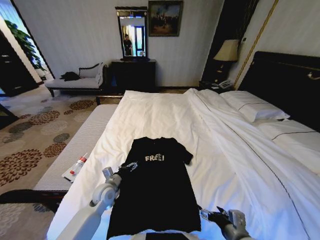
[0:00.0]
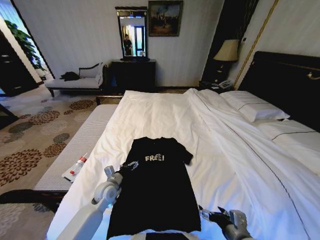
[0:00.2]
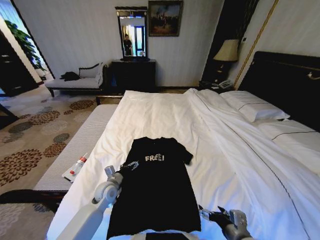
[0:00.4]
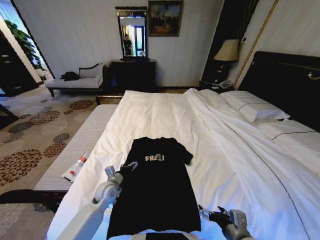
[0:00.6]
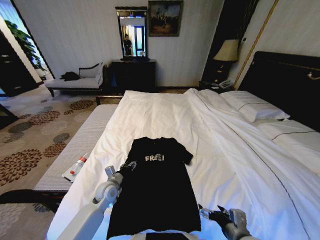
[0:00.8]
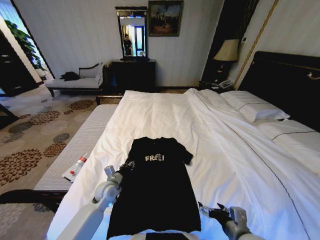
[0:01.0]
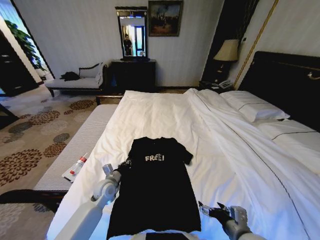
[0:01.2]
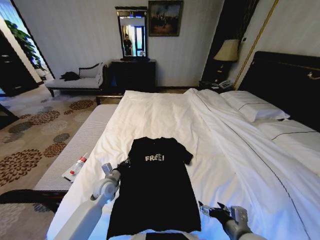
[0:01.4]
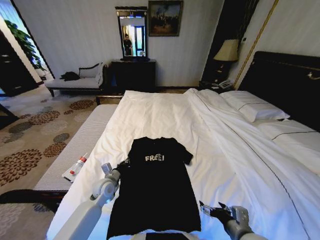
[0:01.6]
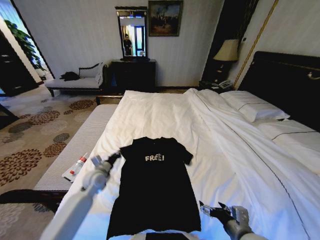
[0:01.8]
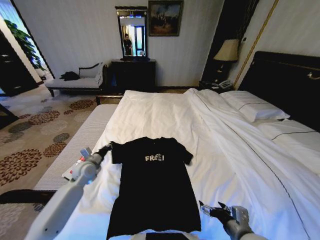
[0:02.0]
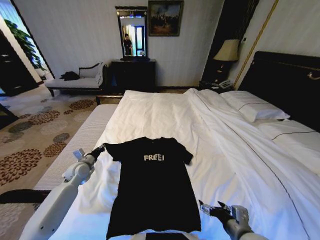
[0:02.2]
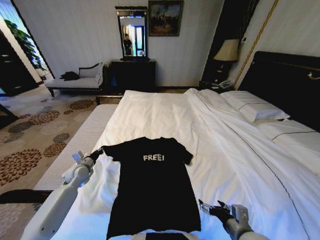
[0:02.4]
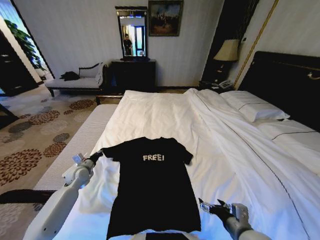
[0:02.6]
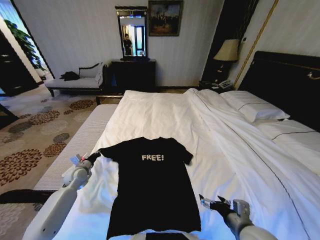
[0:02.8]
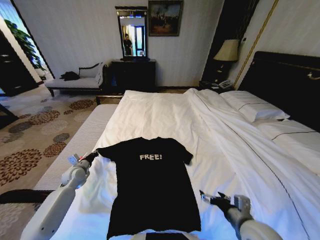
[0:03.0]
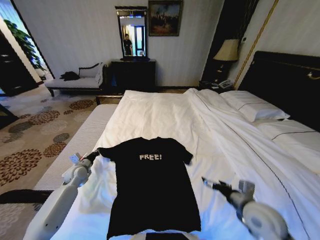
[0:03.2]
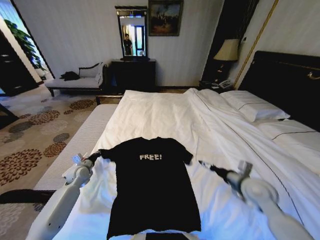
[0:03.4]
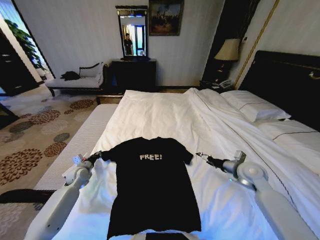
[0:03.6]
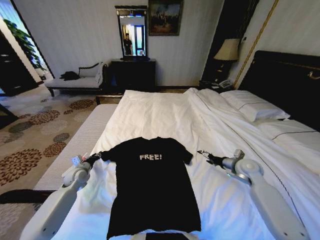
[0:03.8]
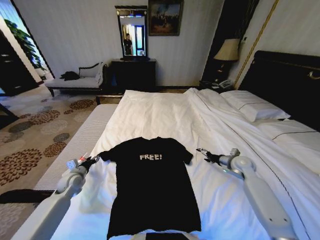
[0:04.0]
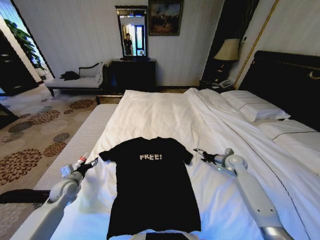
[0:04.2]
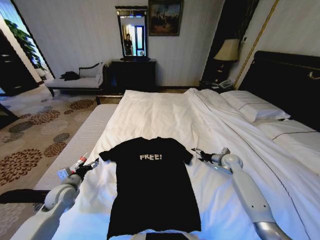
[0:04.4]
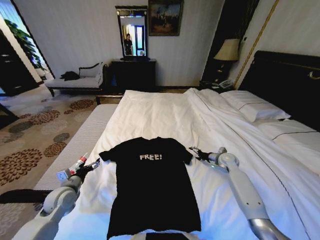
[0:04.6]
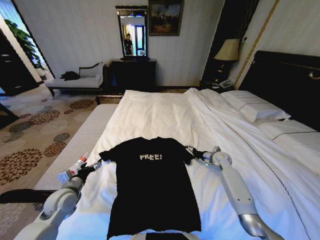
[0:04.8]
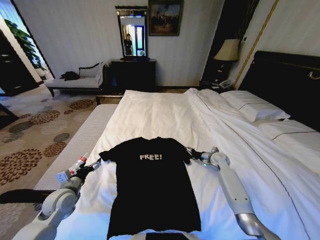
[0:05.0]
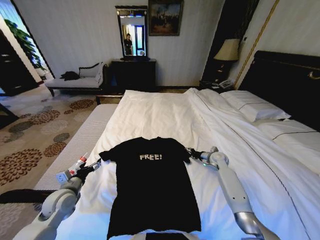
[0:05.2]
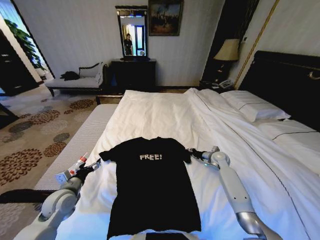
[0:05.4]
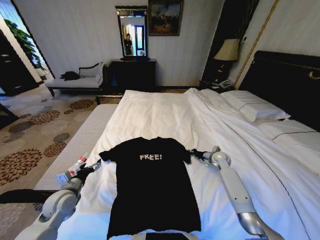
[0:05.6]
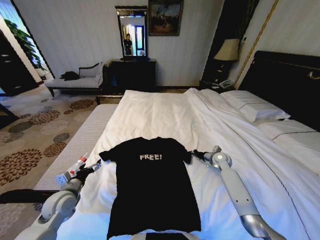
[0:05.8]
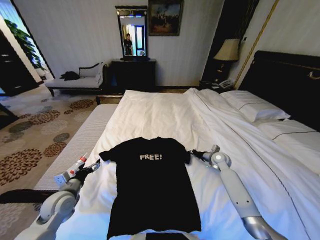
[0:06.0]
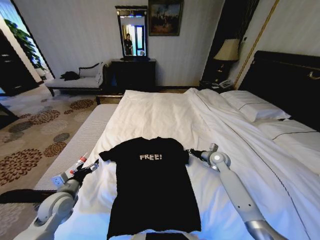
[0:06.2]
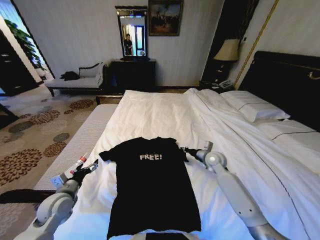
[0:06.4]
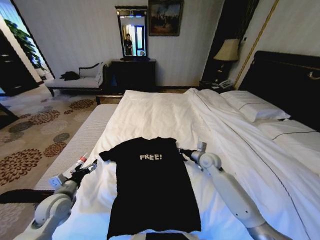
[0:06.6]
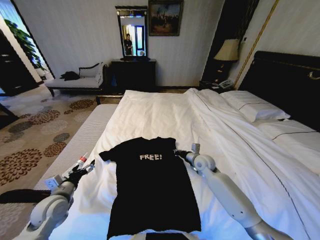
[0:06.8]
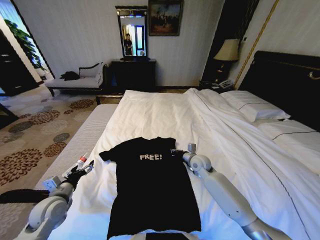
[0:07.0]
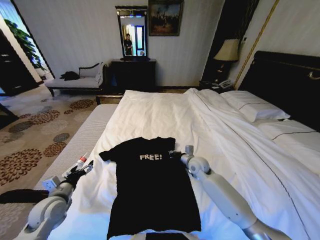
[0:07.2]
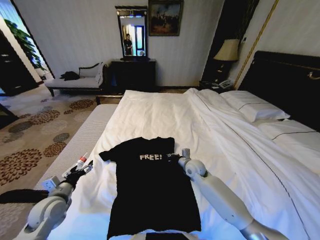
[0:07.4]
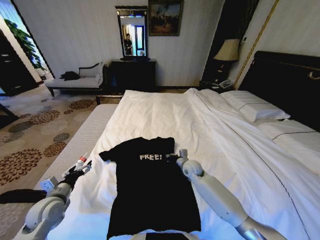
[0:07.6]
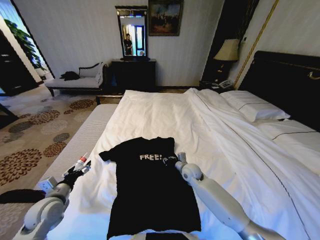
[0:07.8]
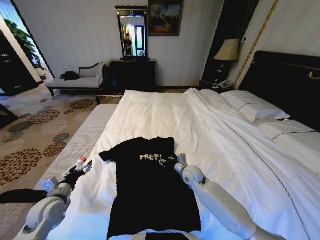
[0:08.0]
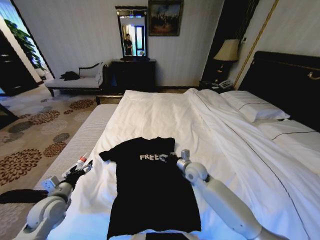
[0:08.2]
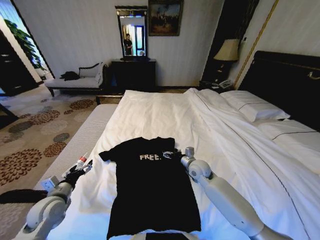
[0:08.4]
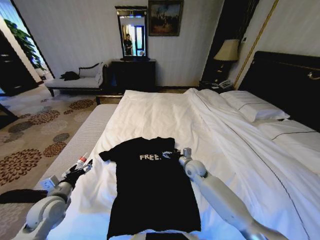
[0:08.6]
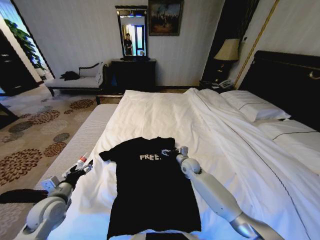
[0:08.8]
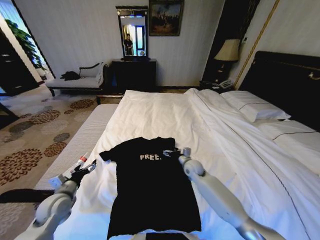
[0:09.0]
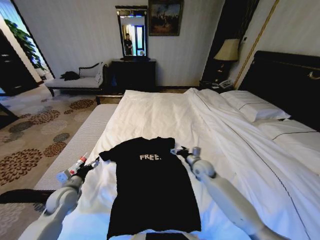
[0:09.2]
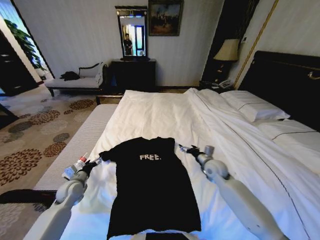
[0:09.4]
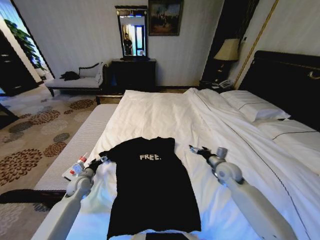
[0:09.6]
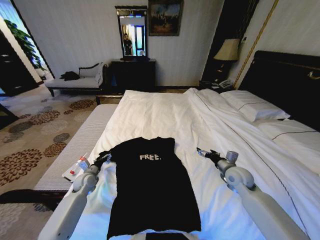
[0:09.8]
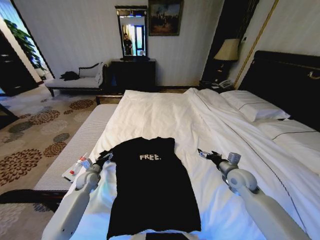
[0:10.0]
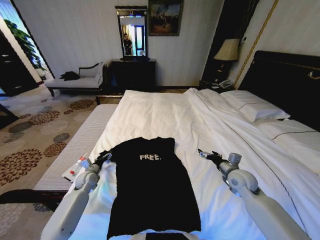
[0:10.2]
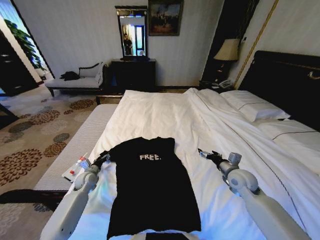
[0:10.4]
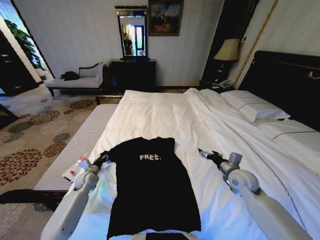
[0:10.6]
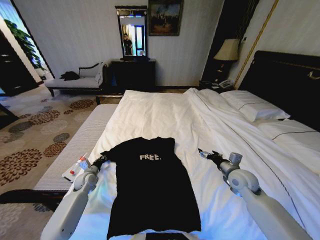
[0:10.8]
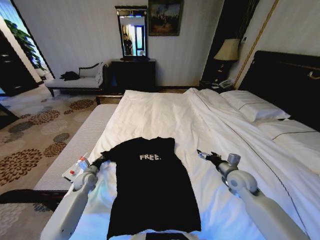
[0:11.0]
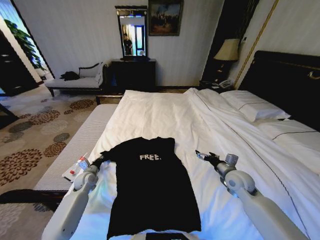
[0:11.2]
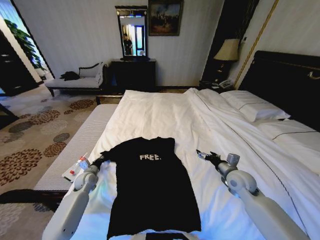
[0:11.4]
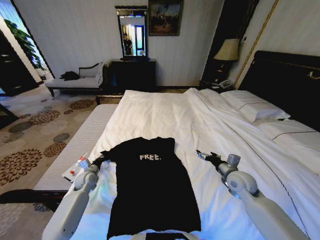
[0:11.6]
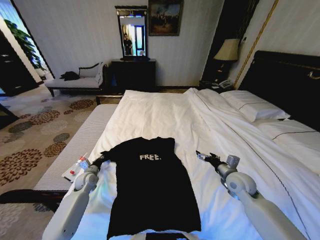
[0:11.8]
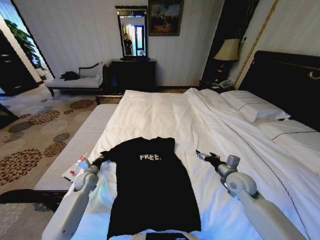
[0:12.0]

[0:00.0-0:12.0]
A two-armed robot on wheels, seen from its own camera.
Task of the whole recording: Fold the clothes on the bed.
0:00.0 to 0:01.6: The left gripper closes.
0:01.6 to 0:03.0: The left gripper goes approximately 15 cm to the left.
0:03.0 to 0:04.4: The left gripper moves backward, about 10 cm, and opens, while the right gripper travels forward by about 30 cm.
0:04.4 to 0:06.0: The left gripper changes place by some 5 cm. The right gripper moves roughly 5 cm, and closes up.
0:06.0 to 0:07.6: The right gripper goes some 15 cm to the left.
0:07.6 to 0:09.0: The right gripper opens its fingers.
0:09.0 to 0:10.4: The right gripper heads to the right, backward and upward, covering roughly 20 cm. Meanwhile the left gripper is displaced forward and downward by approximately 15 cm.
0:10.4 to 0:12.0: The left gripper closes its fingers.

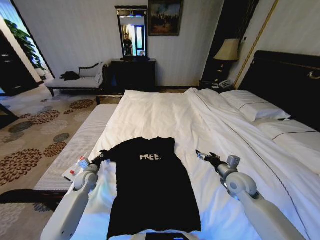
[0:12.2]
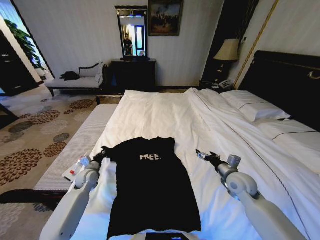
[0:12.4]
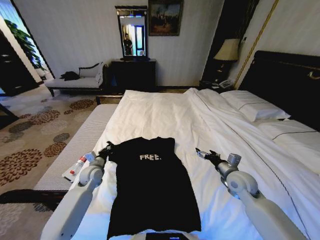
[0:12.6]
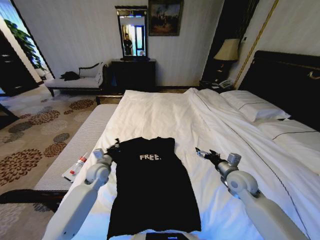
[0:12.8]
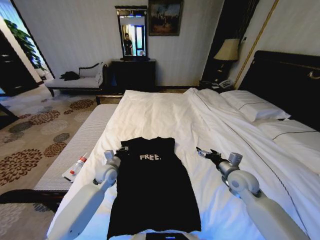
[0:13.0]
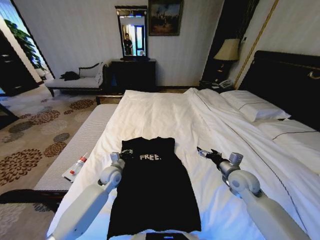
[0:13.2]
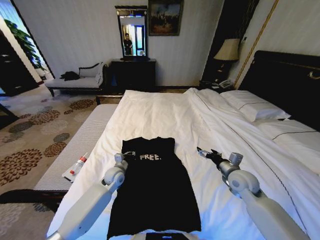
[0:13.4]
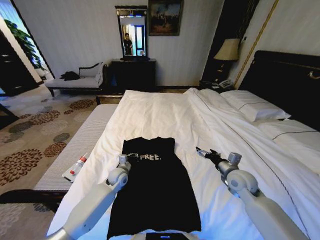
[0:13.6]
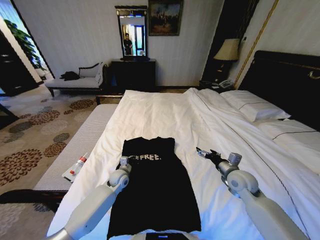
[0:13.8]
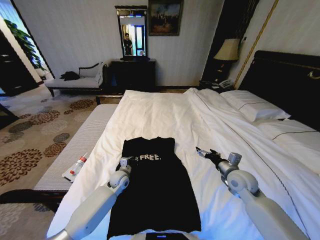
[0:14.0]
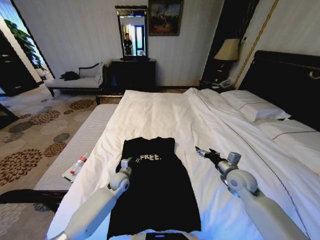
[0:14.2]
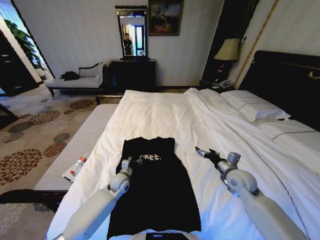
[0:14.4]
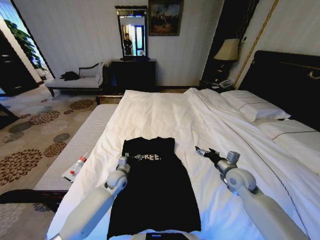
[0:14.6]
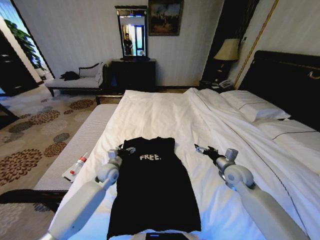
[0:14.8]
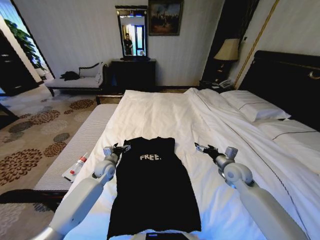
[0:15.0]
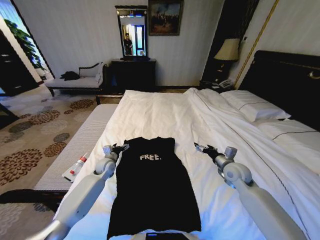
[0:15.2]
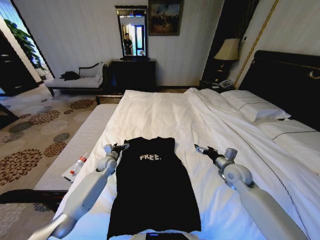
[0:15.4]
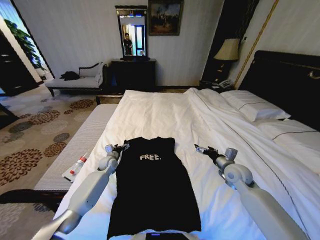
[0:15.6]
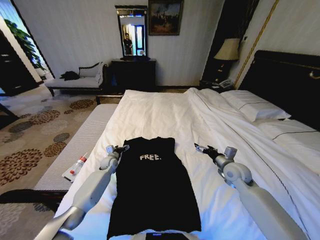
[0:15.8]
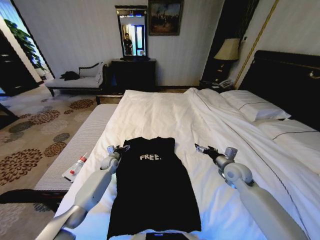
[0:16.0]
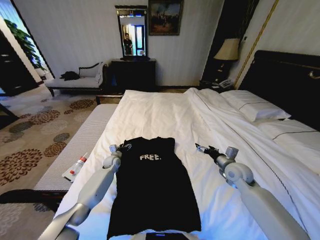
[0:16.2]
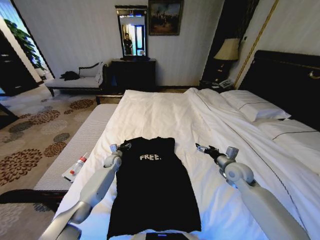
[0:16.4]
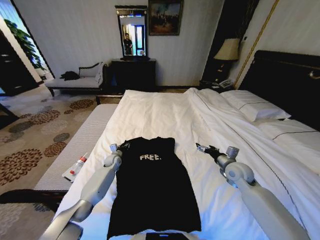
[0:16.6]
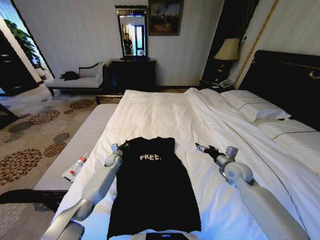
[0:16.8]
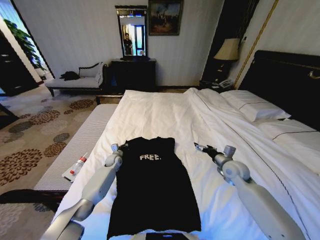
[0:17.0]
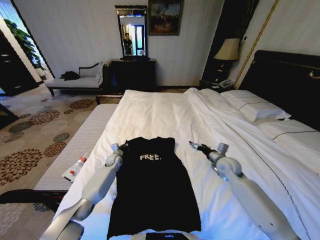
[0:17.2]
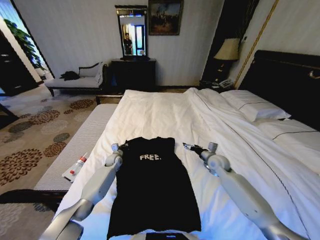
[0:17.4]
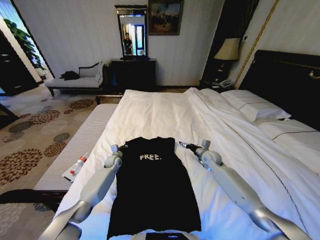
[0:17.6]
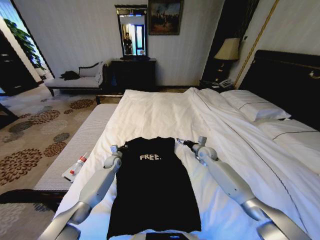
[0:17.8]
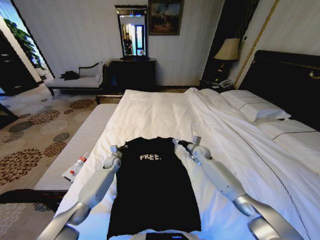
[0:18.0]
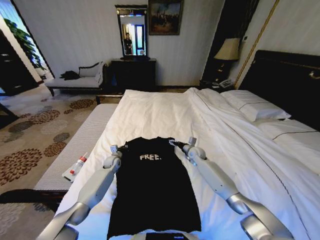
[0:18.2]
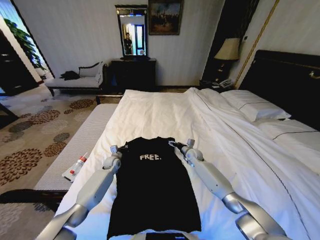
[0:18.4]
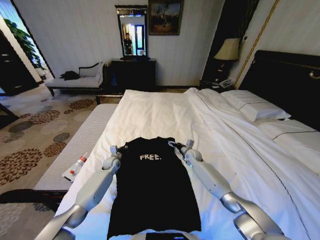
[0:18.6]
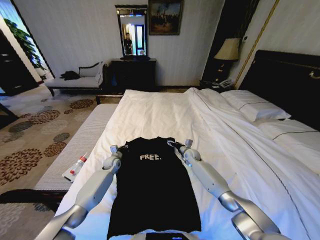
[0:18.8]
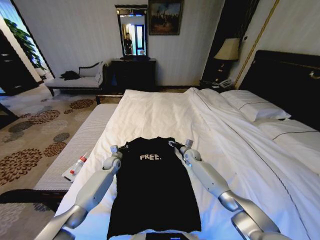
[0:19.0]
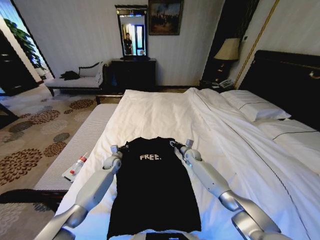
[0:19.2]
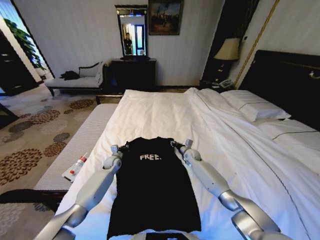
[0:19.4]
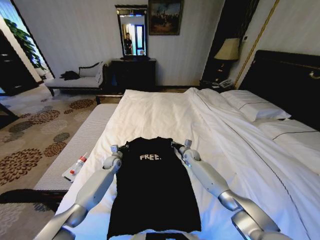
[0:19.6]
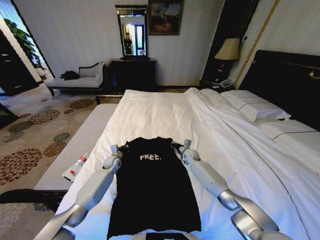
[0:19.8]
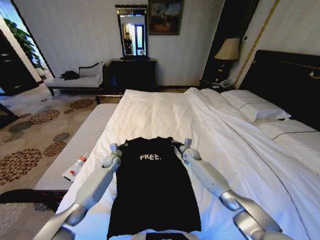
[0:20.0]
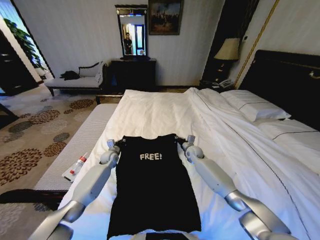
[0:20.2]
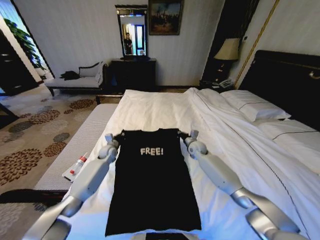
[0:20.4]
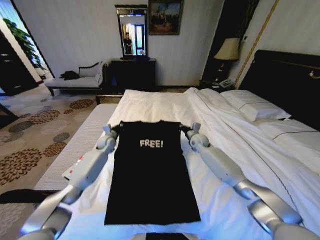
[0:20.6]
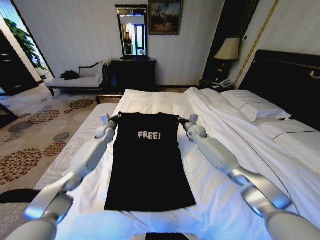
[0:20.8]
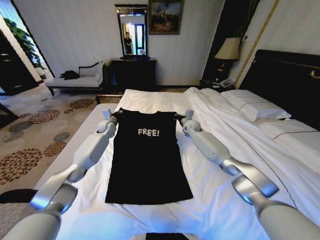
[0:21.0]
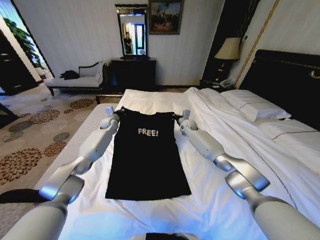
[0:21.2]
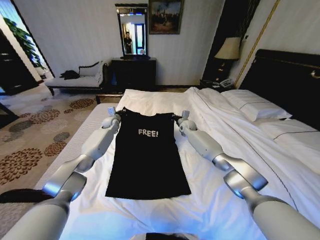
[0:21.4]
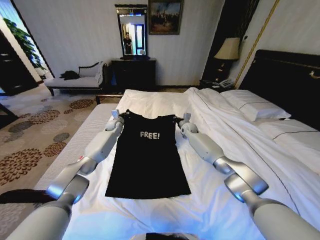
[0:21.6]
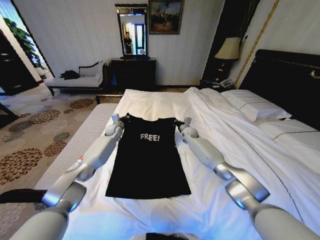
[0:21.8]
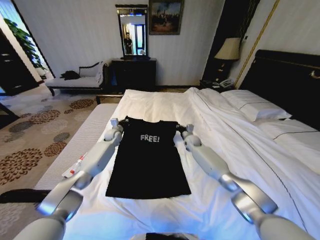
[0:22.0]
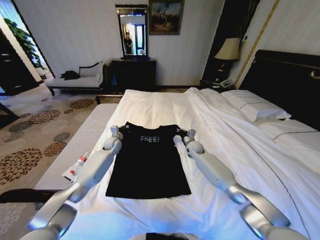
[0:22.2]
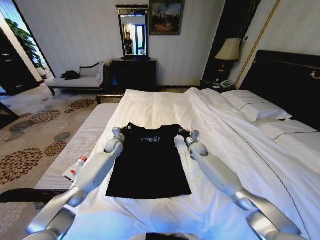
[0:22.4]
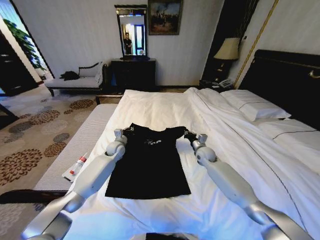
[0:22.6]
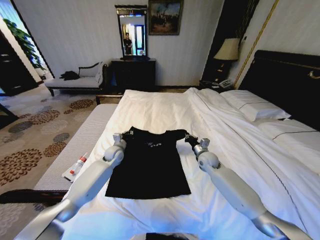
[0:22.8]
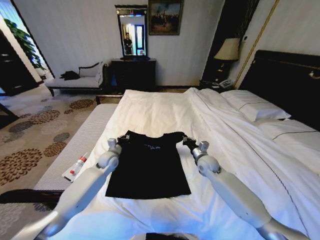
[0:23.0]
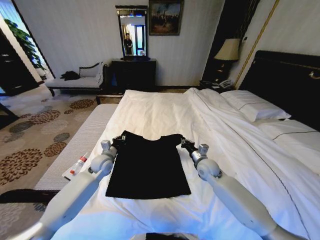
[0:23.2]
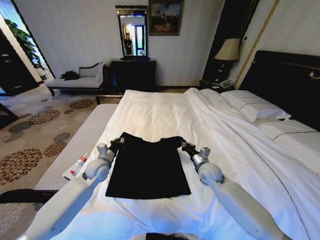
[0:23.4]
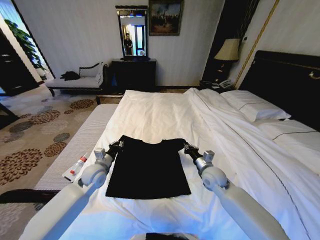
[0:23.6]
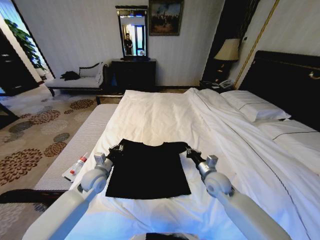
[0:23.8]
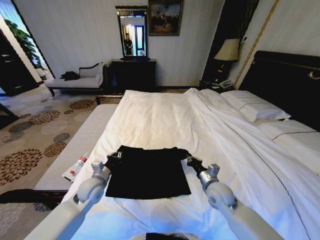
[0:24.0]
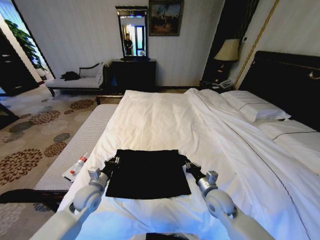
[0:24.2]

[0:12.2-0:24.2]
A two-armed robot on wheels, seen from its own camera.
Task of the whole recording: Fold the clothes on the bed.
0:12.2 to 0:13.8: The left gripper heads to the right, covering about 15 cm.
0:13.8 to 0:15.2: The left gripper is displaced to the left and forward by roughly 10 cm, and opens its fingers.
0:15.2 to 0:16.6: The left gripper moves forward and downward, roughly 10 cm, and closes its fingers.
0:16.6 to 0:18.2: The left gripper closes. Meanwhile the right gripper goes some 20 cm forward, to the left and downward.
0:18.2 to 0:19.8: The right gripper closes up.
0:19.8 to 0:21.2: The two grippers go roughly 20 cm upward and forward.
0:21.2 to 0:22.6: The left gripper is displaced backward, downward and to the right by roughly 15 cm; the right gripper travels backward and downward by approximately 20 cm.
0:22.6 to 0:24.2: Both grippers move backward, approximately 25 cm.
